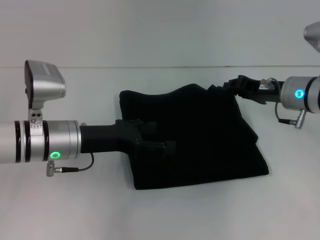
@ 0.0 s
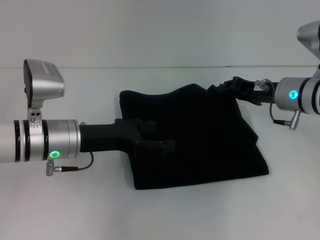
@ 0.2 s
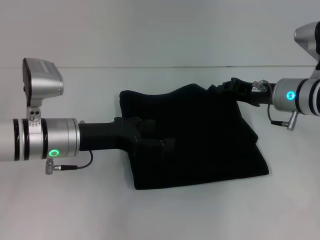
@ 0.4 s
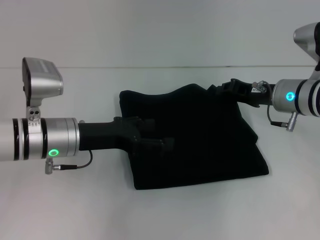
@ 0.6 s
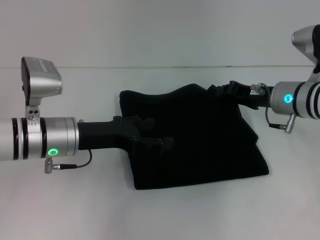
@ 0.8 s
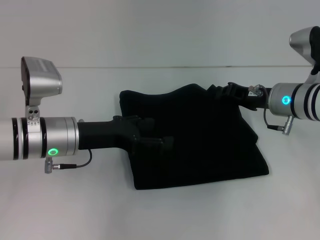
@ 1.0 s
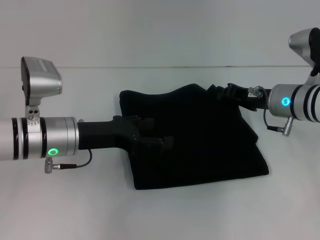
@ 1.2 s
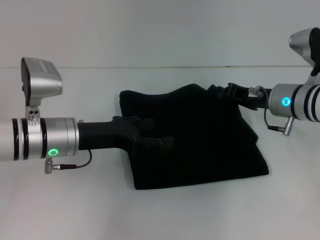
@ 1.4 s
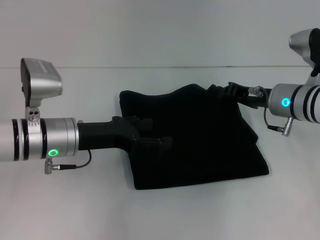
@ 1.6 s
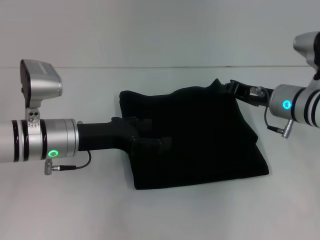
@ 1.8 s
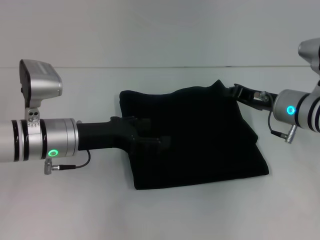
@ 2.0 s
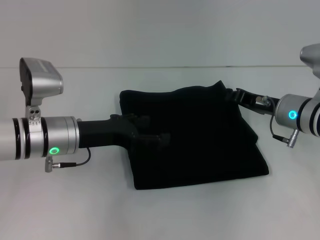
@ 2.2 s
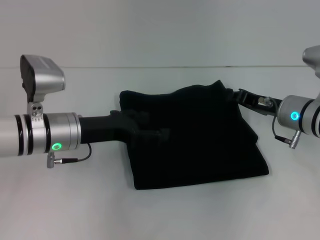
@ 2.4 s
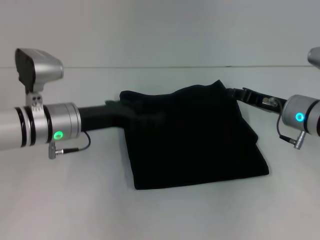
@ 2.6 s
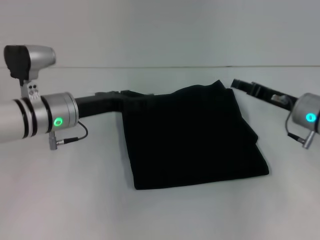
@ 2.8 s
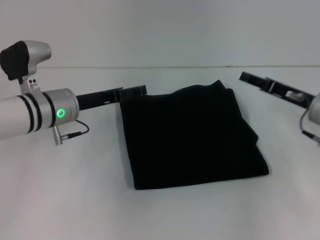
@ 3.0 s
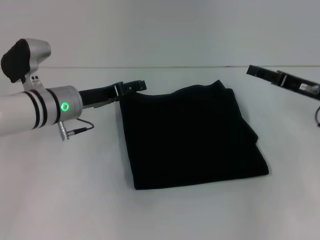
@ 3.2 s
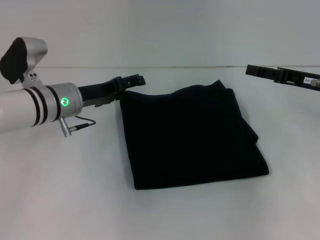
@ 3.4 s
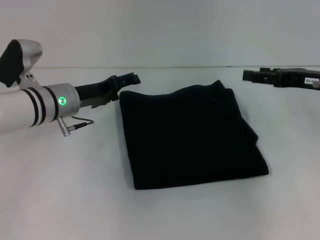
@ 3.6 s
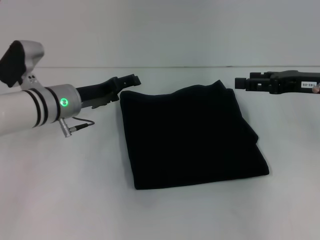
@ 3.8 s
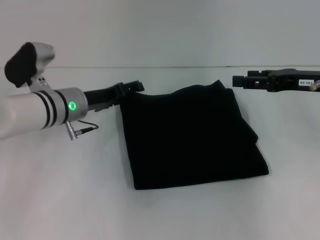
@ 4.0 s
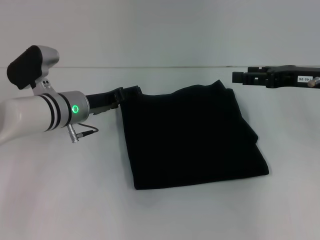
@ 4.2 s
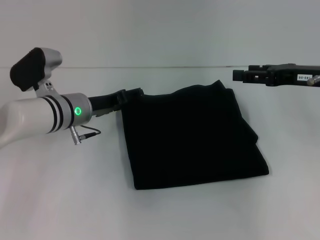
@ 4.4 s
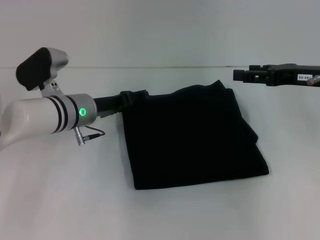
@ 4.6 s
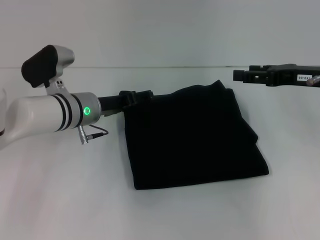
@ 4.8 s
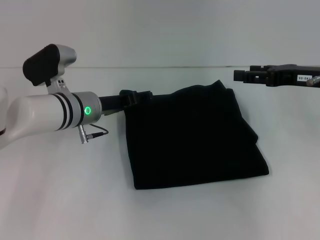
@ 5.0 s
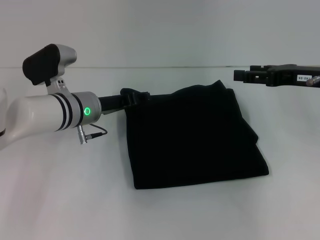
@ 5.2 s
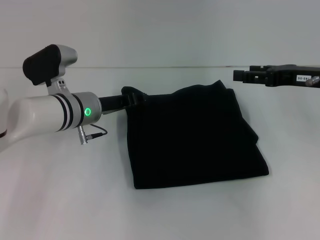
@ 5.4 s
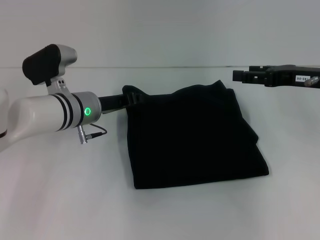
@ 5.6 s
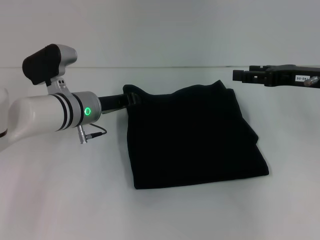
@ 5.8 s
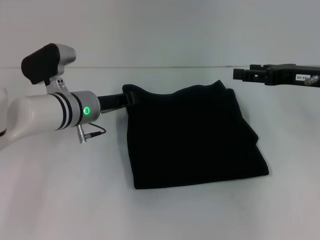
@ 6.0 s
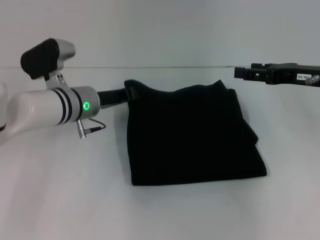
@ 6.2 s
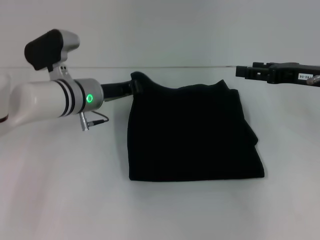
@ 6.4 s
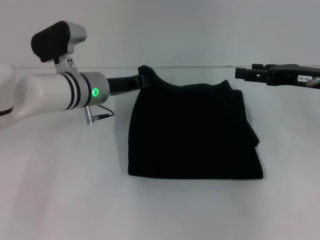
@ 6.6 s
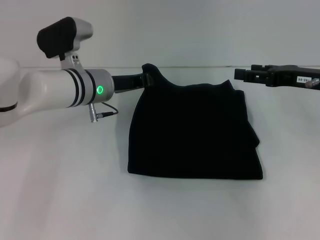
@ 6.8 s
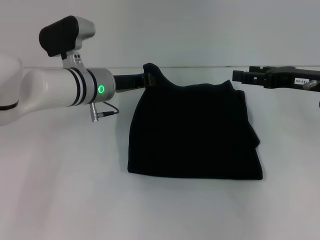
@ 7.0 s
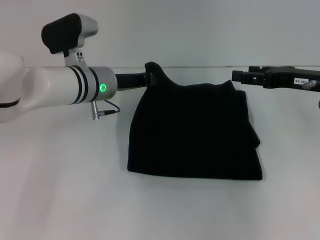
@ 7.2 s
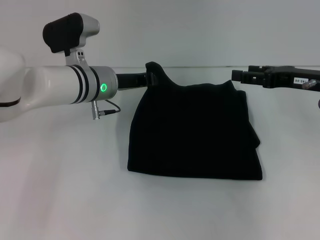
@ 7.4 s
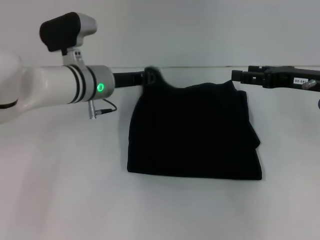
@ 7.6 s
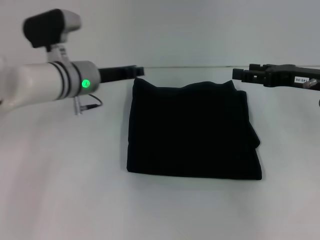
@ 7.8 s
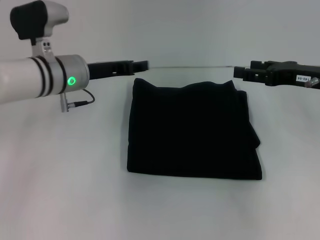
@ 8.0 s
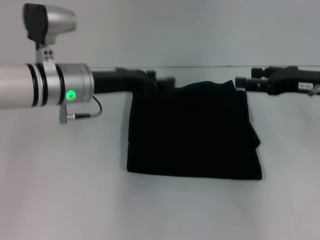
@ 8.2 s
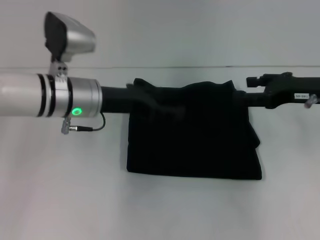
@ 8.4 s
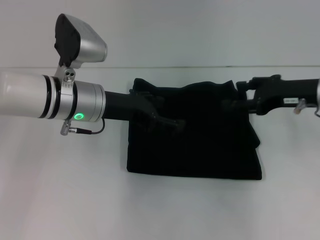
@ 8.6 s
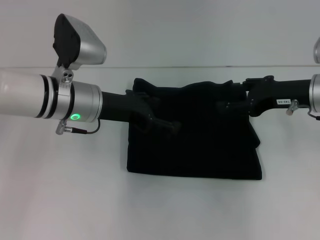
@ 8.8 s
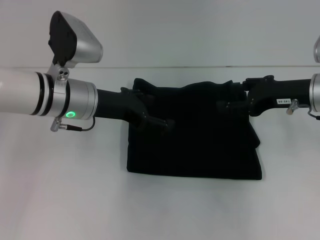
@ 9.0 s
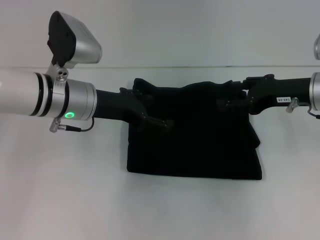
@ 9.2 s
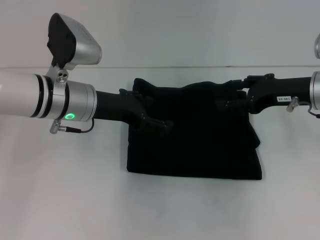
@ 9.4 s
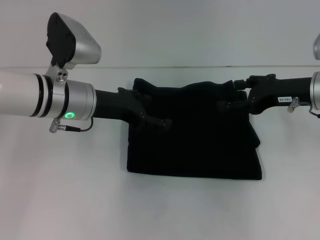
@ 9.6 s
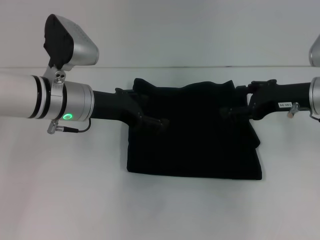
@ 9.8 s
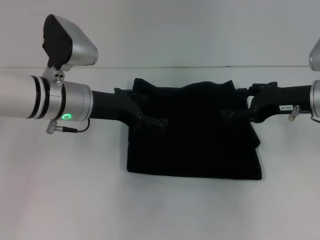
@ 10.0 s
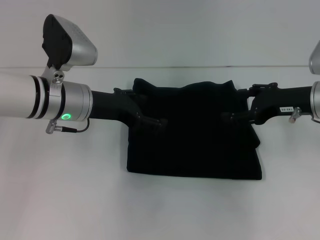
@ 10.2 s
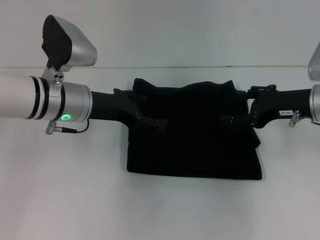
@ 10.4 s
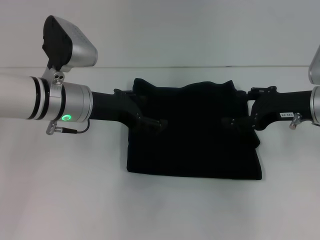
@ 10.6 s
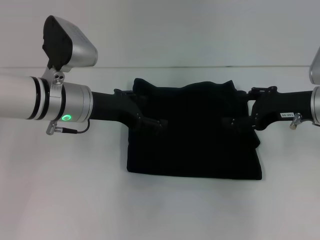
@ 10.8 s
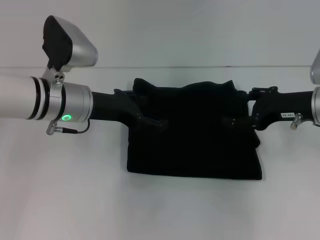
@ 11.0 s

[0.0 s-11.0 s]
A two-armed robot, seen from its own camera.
0.0 to 1.6 s: The grippers move only a little.
1.6 to 3.2 s: The left gripper moves forward, roughly 5 cm, while the right gripper moves to the right, approximately 10 cm, and opens its fingers.
3.2 to 4.8 s: The right gripper travels upward by approximately 5 cm.
4.8 to 6.2 s: The left gripper closes its fingers.
6.2 to 7.8 s: The grippers stay close to where they were, moving slightly.
7.8 to 9.4 s: The left gripper shifts about 5 cm backward, and opens.
9.4 to 11.0 s: The grippers make only small movements.

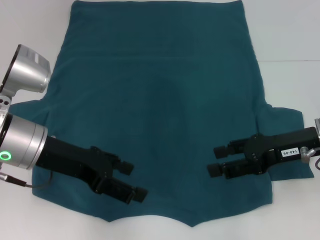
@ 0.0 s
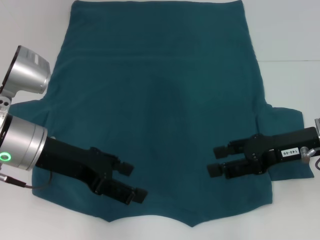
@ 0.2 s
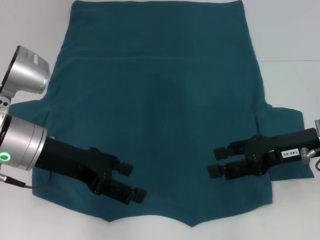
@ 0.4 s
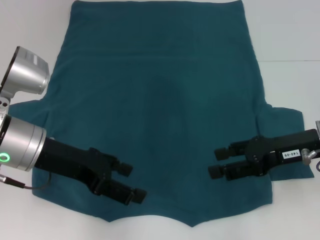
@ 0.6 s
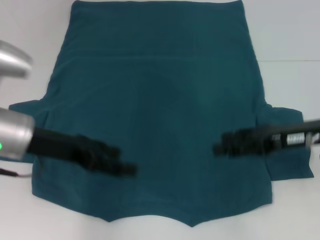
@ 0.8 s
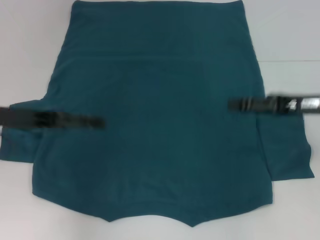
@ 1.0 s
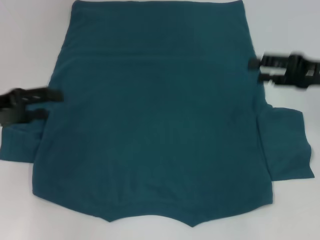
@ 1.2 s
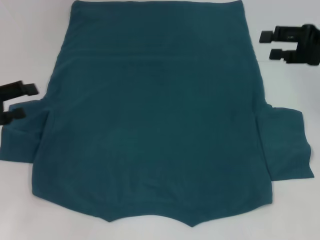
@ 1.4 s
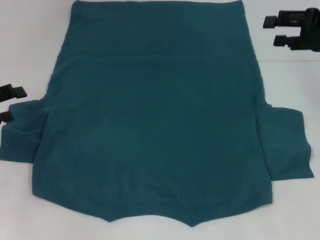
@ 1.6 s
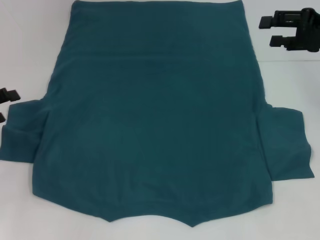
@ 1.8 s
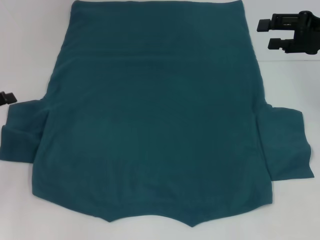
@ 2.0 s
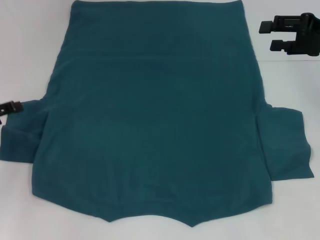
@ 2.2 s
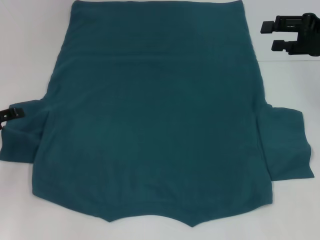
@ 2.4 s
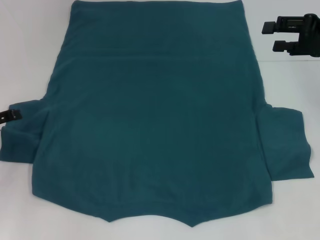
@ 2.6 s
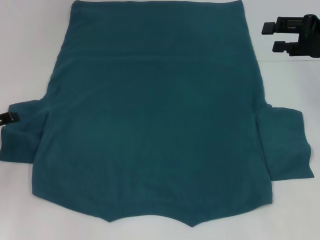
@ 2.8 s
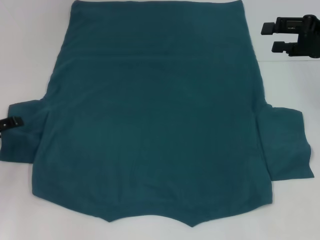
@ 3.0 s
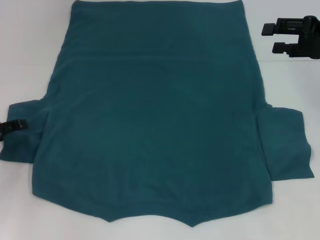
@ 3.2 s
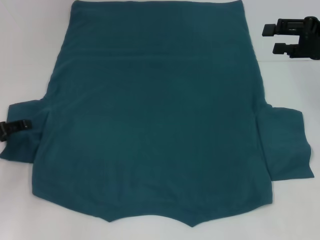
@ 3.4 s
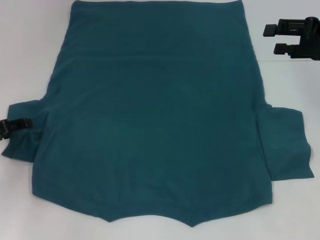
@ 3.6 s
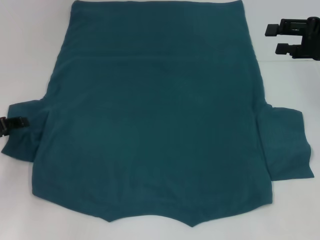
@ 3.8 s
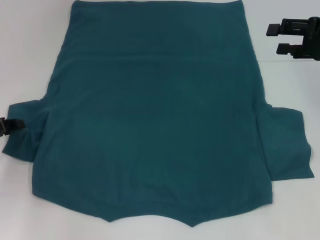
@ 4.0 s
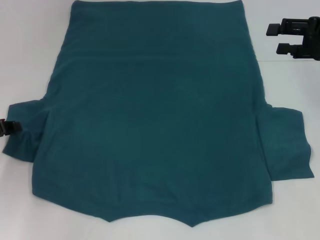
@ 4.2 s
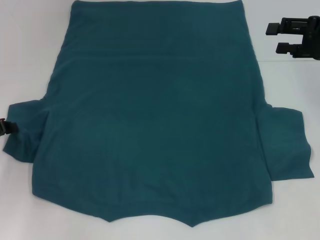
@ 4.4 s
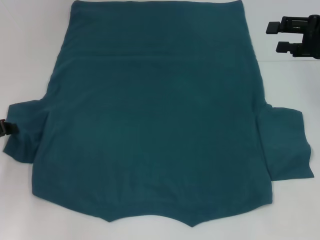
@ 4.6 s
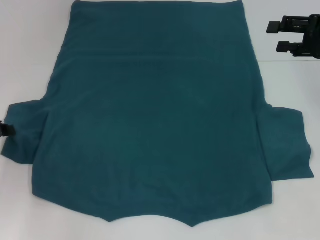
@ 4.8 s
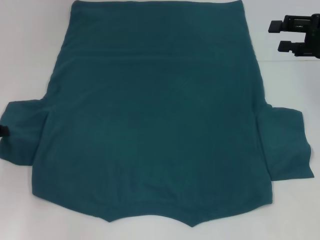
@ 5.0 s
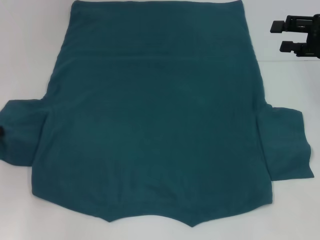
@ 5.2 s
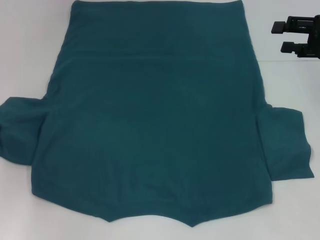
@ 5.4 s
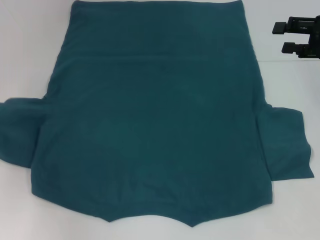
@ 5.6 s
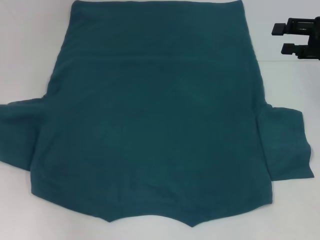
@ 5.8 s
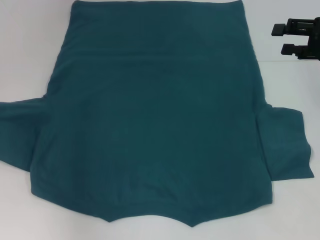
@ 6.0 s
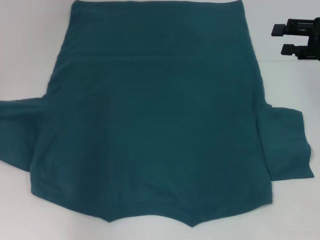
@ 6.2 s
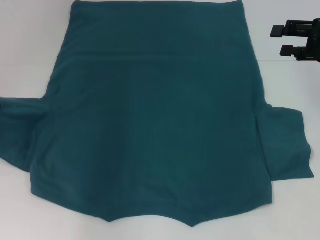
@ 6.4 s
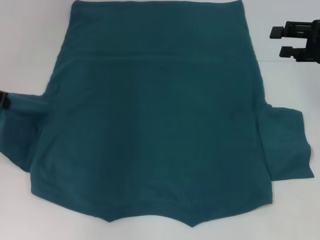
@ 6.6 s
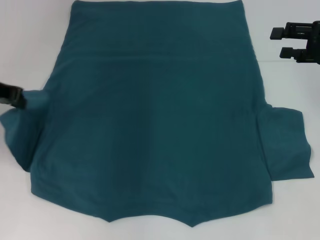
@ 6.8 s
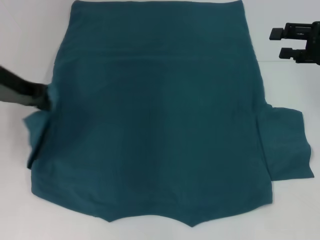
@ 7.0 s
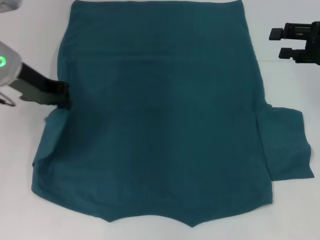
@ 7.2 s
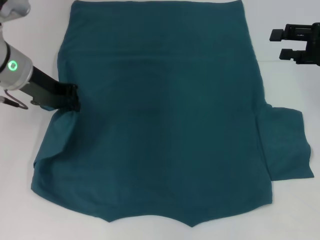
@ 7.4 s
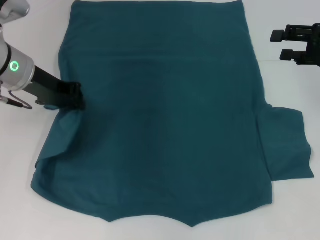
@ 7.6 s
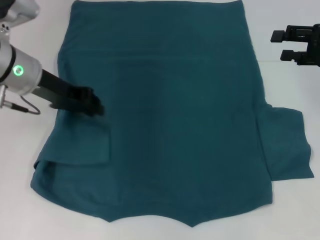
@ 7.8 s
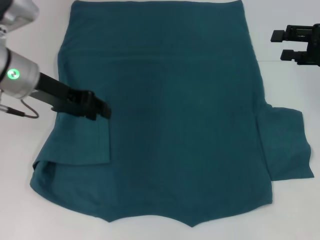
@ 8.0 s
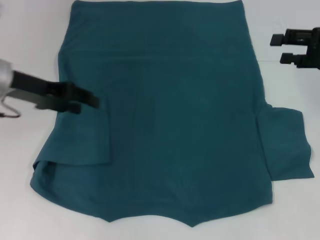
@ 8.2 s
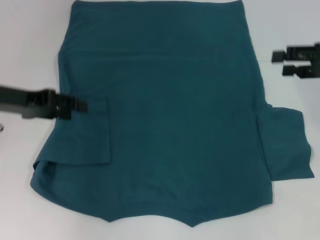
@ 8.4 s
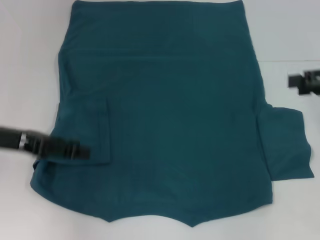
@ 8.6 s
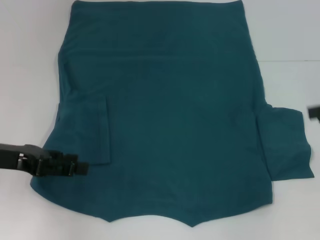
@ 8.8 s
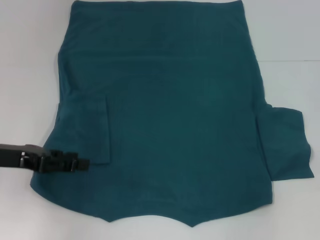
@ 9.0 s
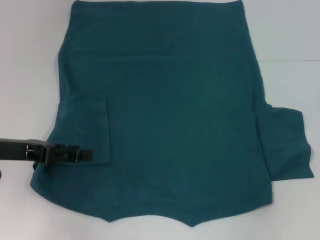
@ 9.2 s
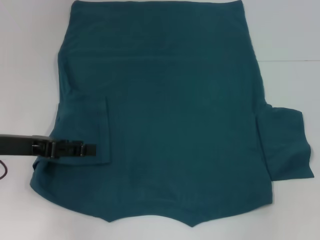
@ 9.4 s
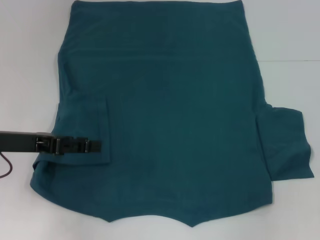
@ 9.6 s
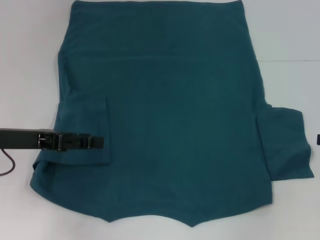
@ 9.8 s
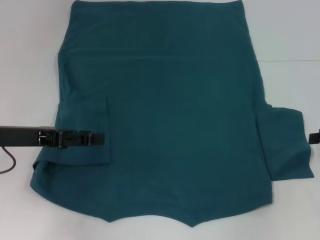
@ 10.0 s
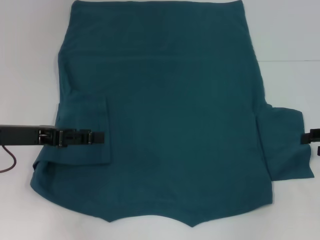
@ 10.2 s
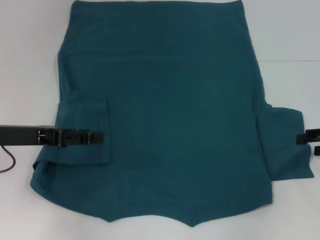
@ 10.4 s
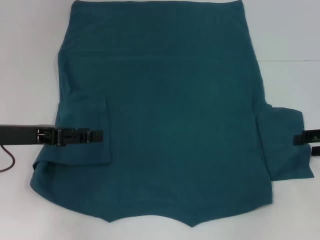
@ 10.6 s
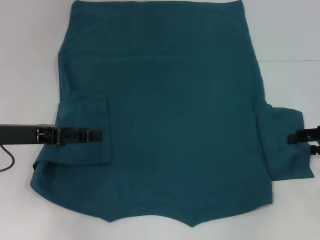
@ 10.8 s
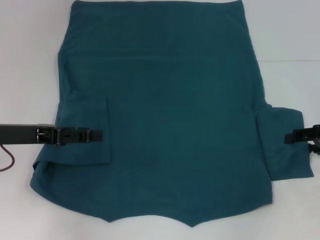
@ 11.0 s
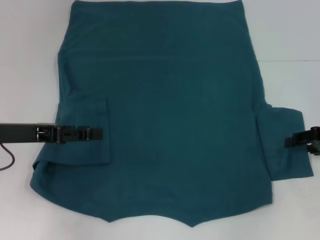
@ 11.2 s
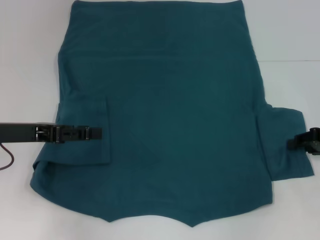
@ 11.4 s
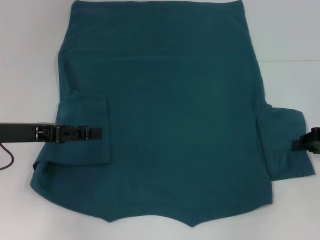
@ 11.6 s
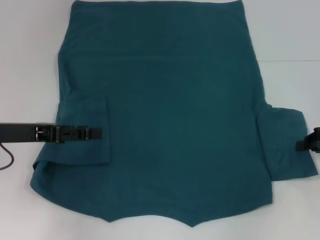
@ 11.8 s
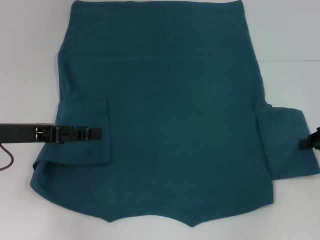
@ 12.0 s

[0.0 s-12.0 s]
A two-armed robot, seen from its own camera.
Step, 0.0 to 8.2 s: Fold the bottom left sleeve with your left hand.
0.0 to 1.6 s: The right gripper is displaced forward, to the right and upward by roughly 15 cm. Meanwhile the left gripper is displaced to the left by roughly 15 cm.
1.6 to 3.0 s: The left gripper moves downward, approximately 5 cm.
4.4 to 6.0 s: The left gripper moves upward, some 5 cm.
6.0 to 7.6 s: The left gripper shifts about 15 cm to the right.
7.6 to 9.0 s: The right gripper shifts some 10 cm backward and to the right, while the left gripper travels backward and to the left by approximately 15 cm, and opens its fingers.
10.4 to 12.0 s: The right gripper closes.
